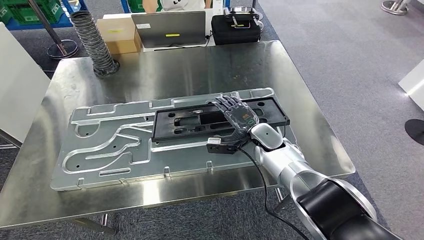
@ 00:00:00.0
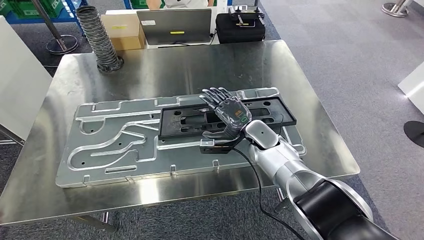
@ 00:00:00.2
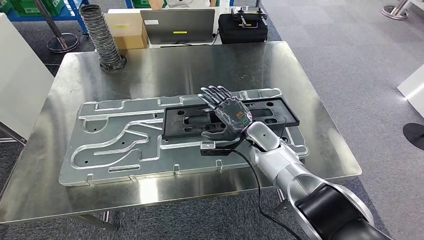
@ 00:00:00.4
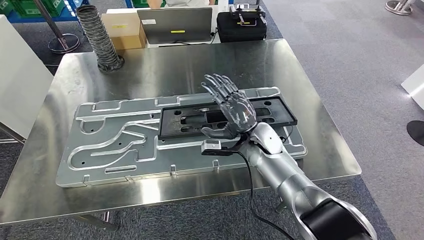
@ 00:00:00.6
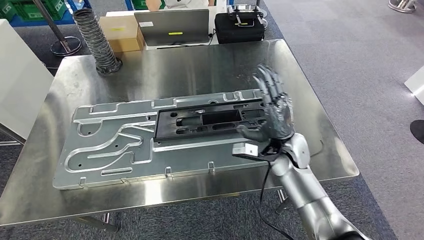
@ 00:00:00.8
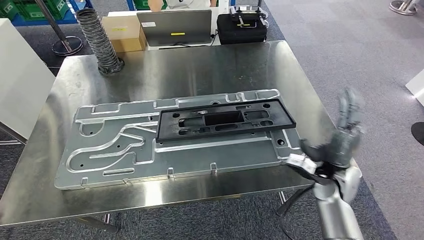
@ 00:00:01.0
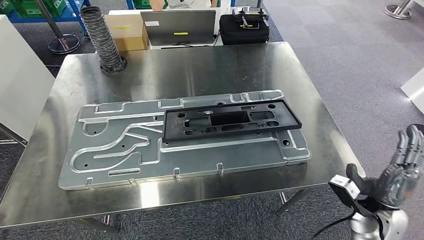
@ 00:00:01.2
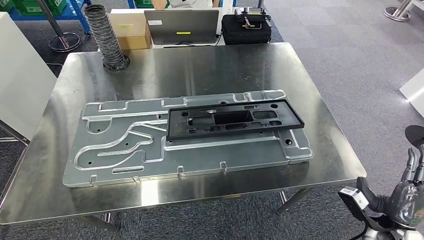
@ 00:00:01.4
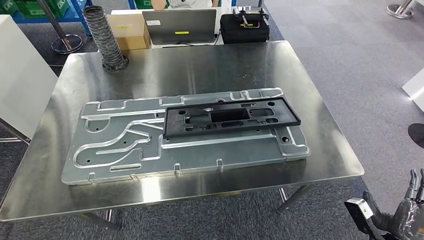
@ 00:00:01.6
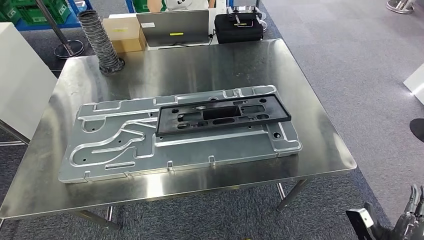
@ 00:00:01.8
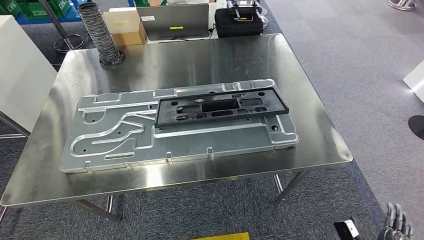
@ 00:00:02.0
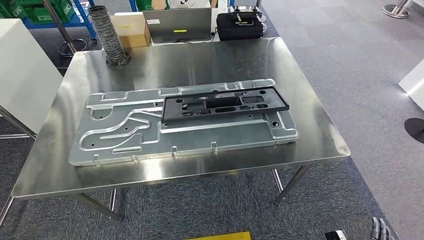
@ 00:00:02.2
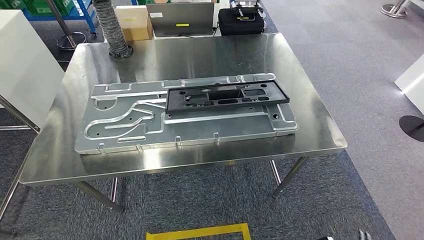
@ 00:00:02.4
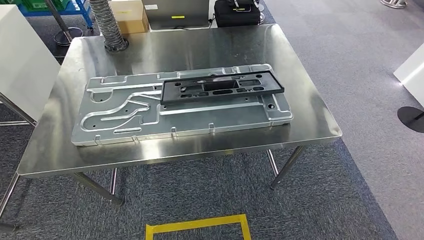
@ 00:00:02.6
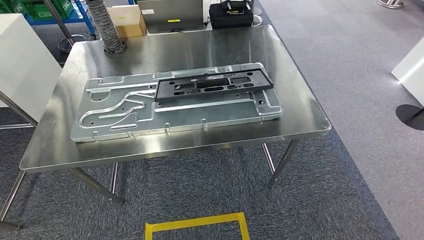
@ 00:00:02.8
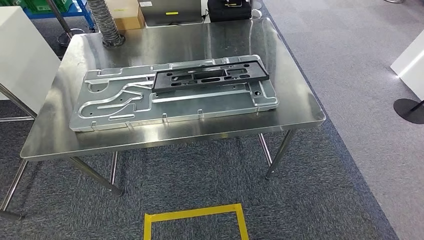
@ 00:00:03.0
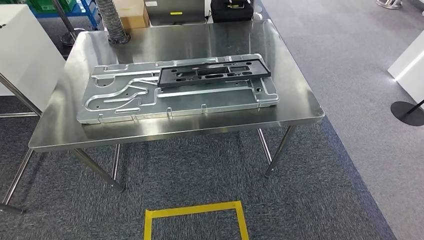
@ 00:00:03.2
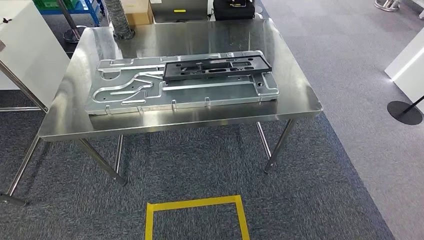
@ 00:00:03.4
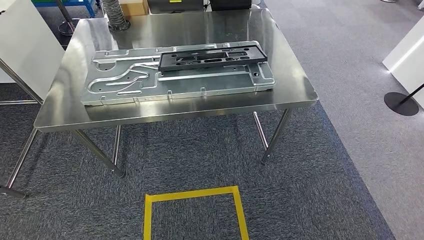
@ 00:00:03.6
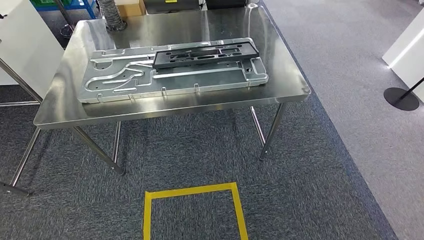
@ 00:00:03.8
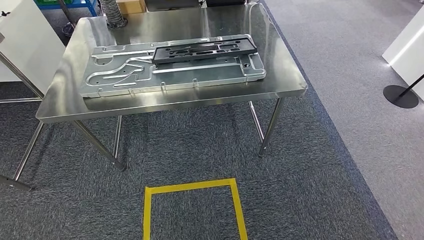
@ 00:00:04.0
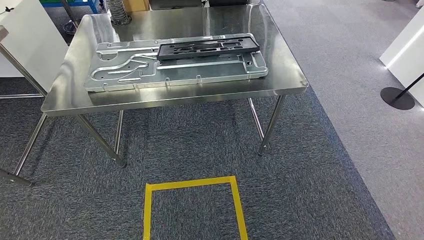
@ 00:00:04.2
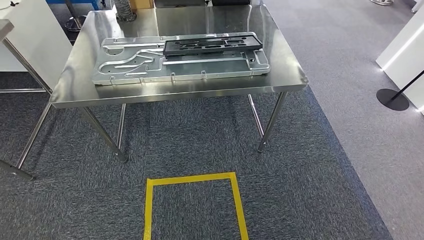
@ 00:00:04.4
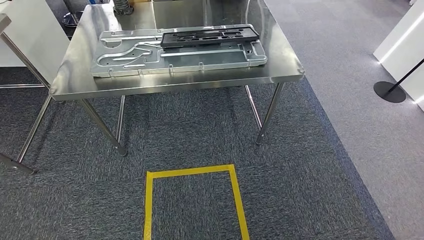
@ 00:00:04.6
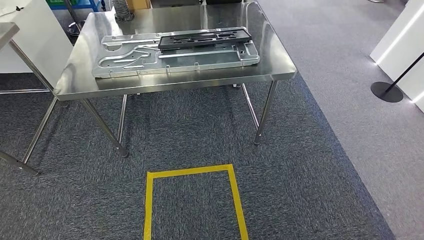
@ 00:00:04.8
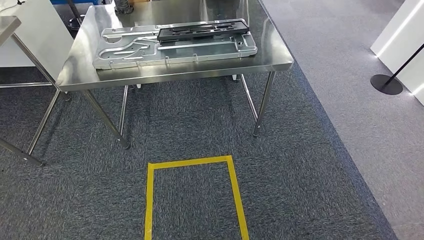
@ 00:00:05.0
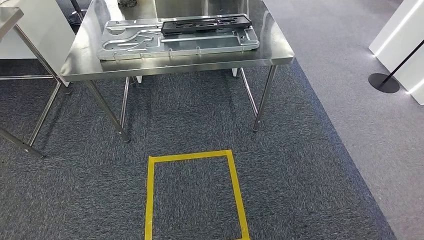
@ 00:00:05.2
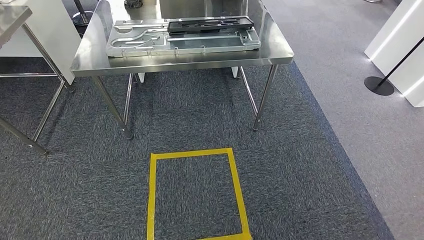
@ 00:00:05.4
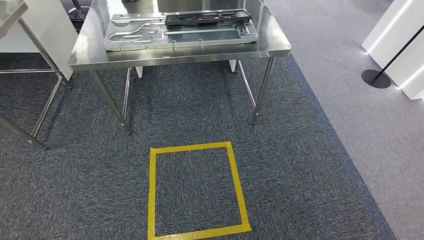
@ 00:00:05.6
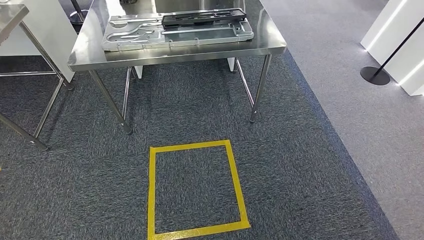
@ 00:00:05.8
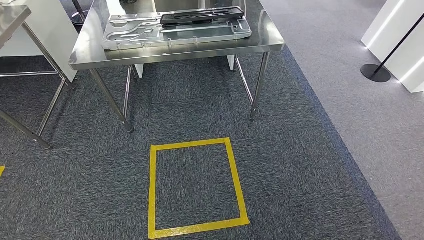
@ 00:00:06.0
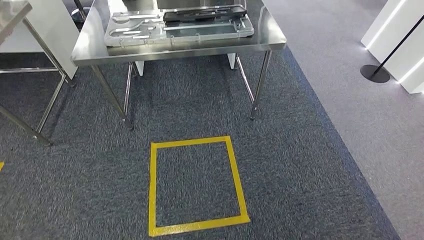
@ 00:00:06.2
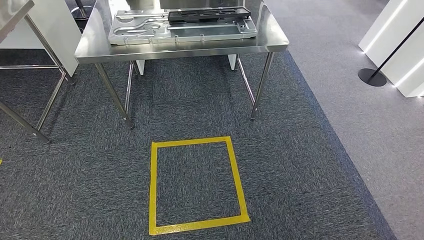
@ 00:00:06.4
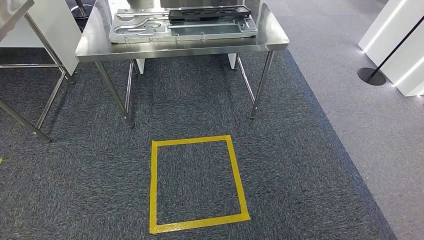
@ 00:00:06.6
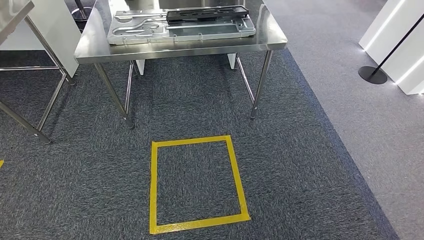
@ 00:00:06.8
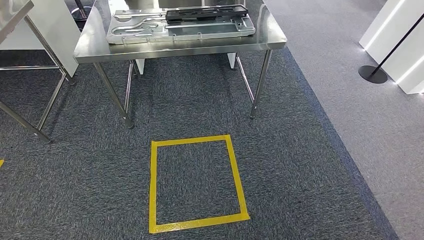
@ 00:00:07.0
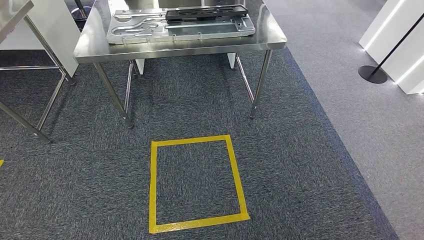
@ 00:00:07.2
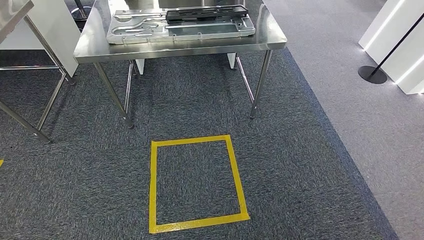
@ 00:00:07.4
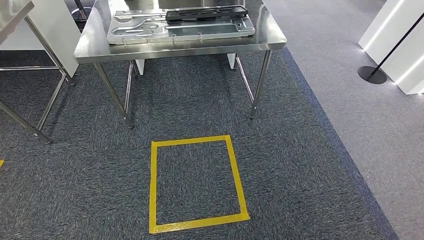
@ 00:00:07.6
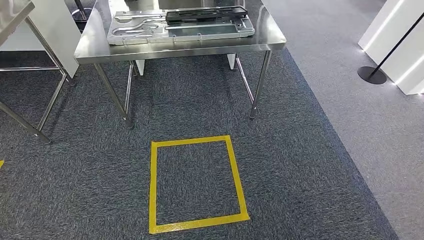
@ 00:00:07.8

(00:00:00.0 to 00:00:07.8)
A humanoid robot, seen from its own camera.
Step, 00:00:01.6 - 00:00:07.6: Move to the initial position of the shelf.
00:00:06.2 - 00:00:07.8: The hands move only a little.
